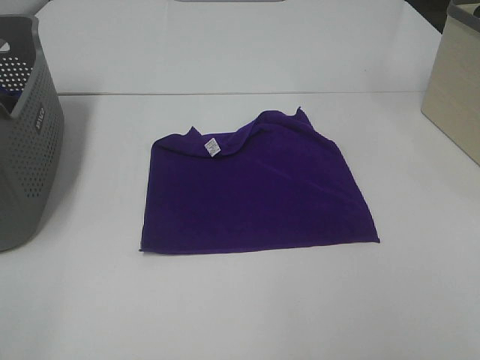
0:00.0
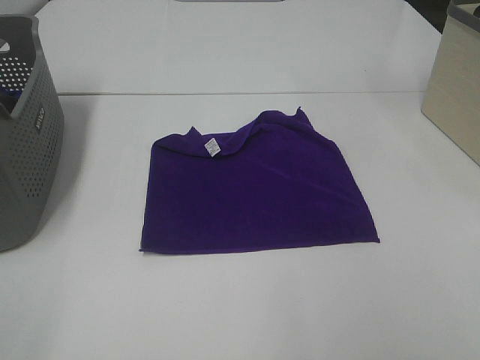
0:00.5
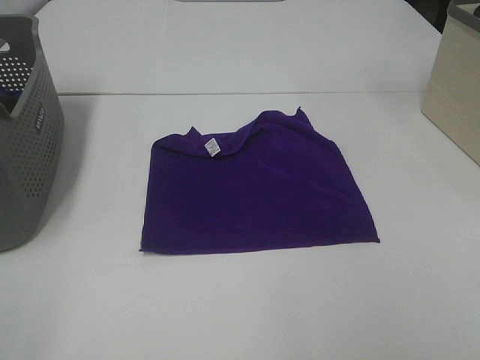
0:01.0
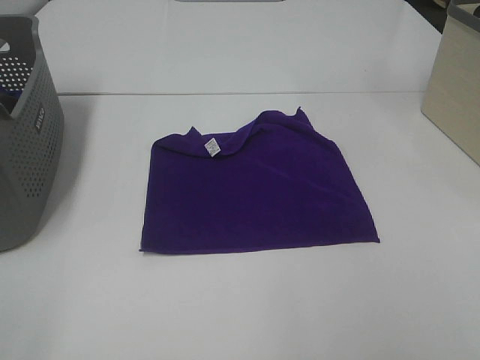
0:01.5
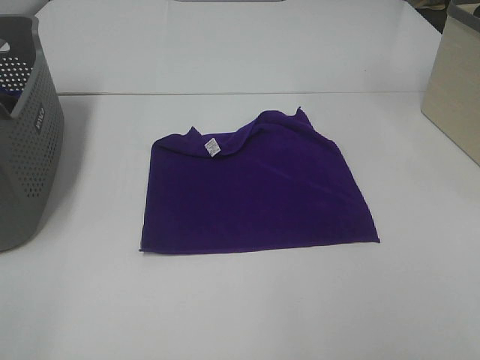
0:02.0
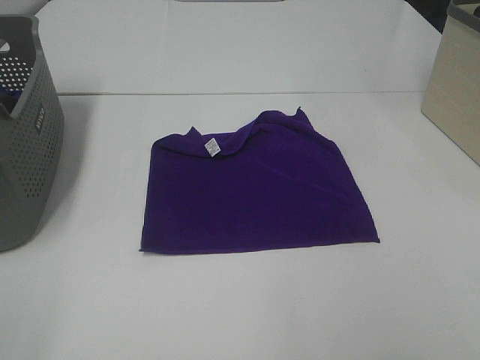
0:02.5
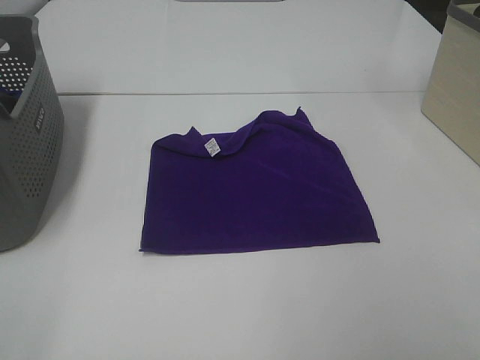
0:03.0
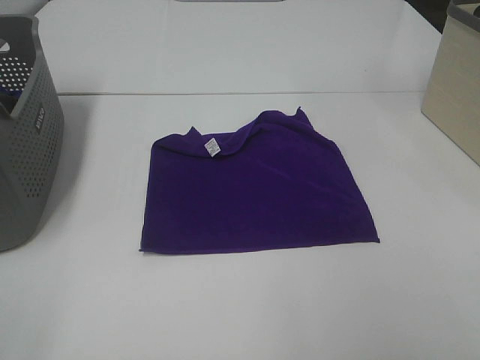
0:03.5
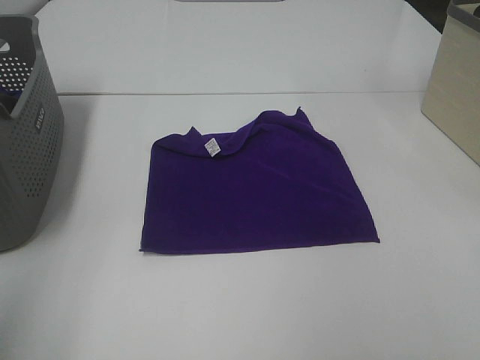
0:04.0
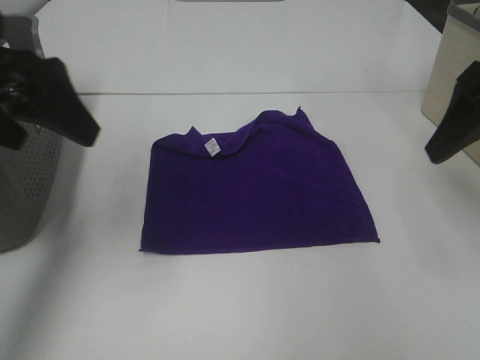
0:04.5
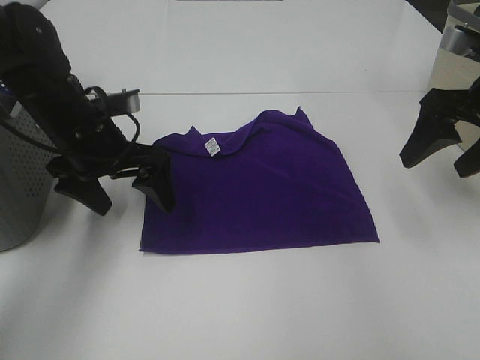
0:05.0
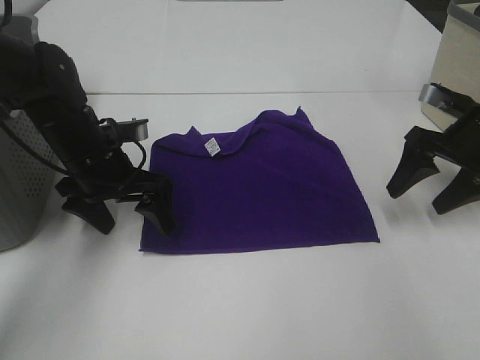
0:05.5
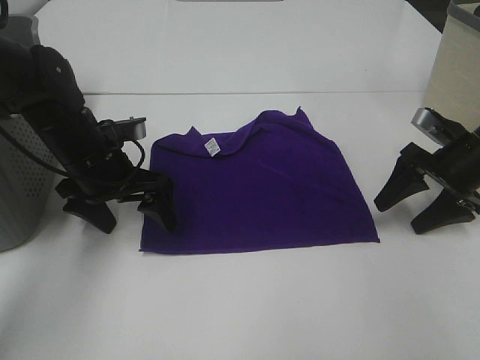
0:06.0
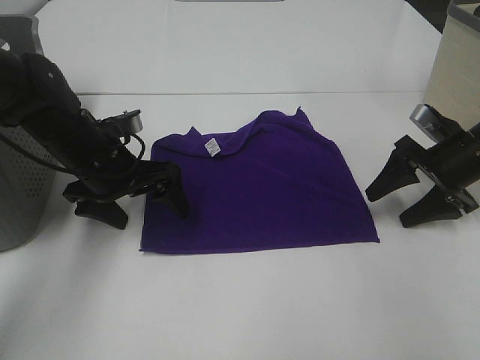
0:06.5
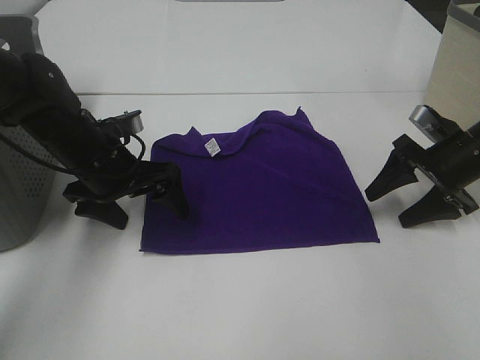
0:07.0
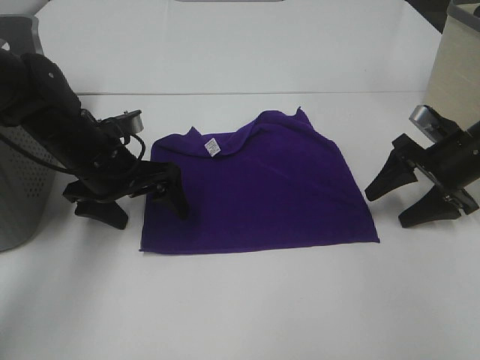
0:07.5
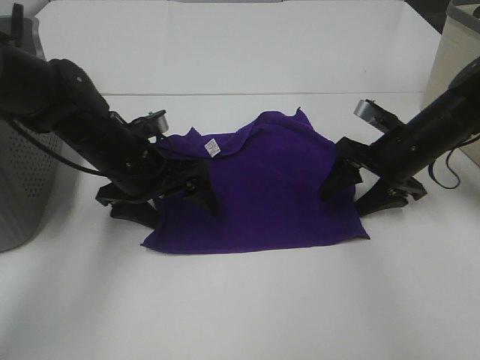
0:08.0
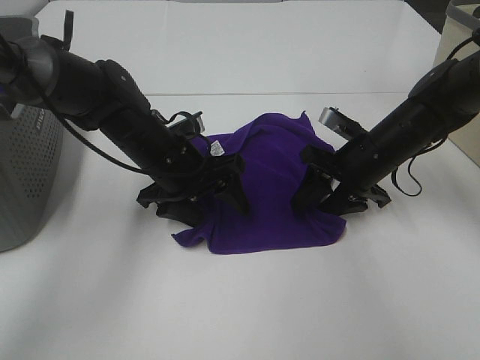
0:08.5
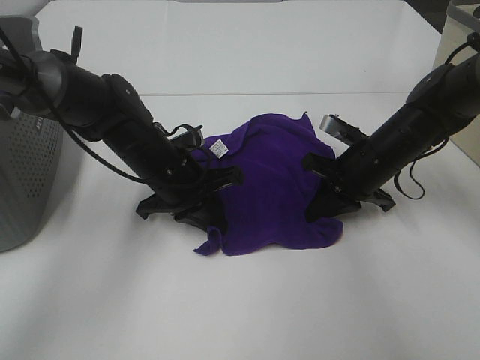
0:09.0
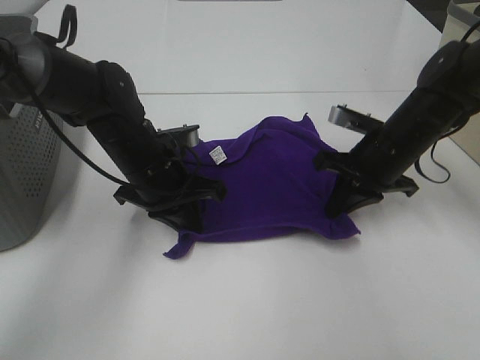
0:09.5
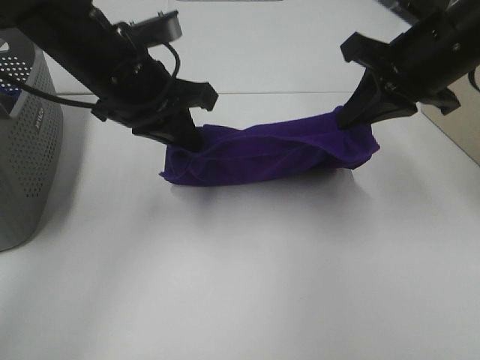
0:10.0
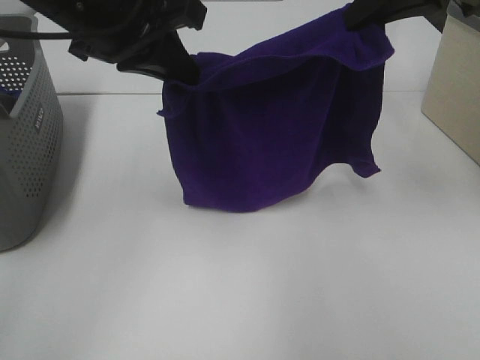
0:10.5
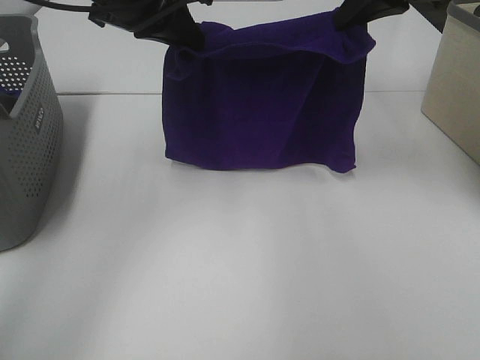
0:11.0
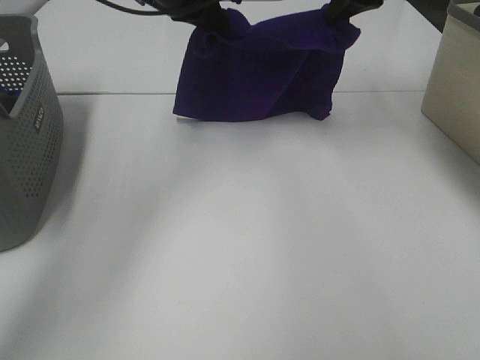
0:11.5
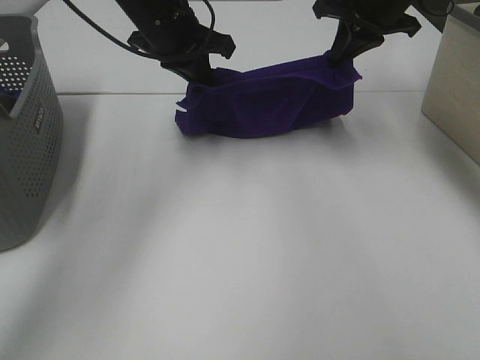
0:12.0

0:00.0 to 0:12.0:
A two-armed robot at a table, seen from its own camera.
Task of the whole recording: Fold towels.
Step, 0:00.0 to 0:09.0: Left hand: grab the bottom left corner of purple towel.
Step, 0:00.0 to 0:09.0: Right hand: grab the bottom right corner of purple towel.
0:00.0 to 0:02.0: Both grippers stay put.
0:02.0 to 0:04.0: The left gripper heads forward and upward, covering approximately 10 cm.
0:04.0 to 0:06.0: The right gripper is displaced forward and downward by roughly 35 cm. The left gripper shifts approximately 40 cm forward, downward and to the right.
0:06.0 to 0:08.0: The right gripper travels to the left by some 10 cm.
0:08.0 to 0:10.0: Both grippers travel together upward, roughly 15 cm. The right gripper closes, while the left gripper closes.
0:10.0 to 0:12.0: Both grippers move forward, some 15 cm.

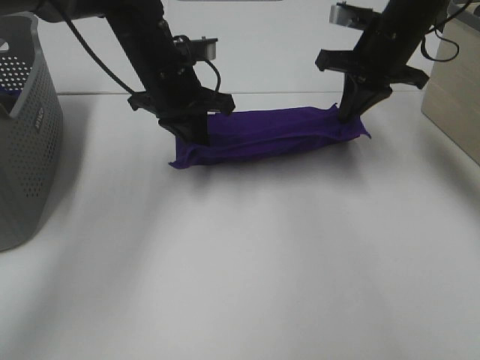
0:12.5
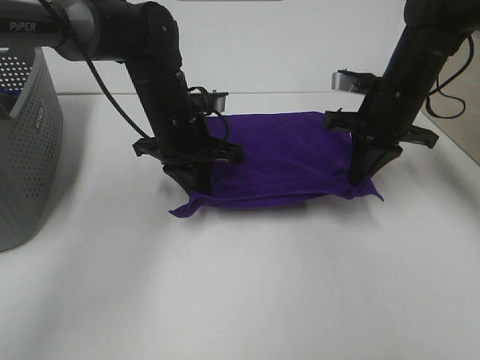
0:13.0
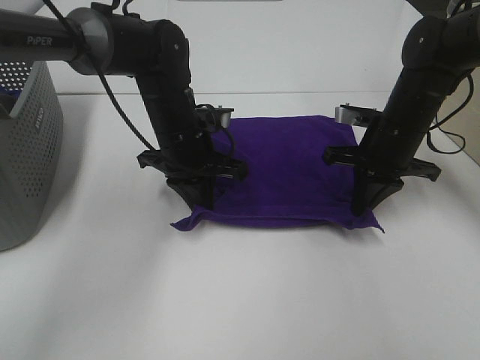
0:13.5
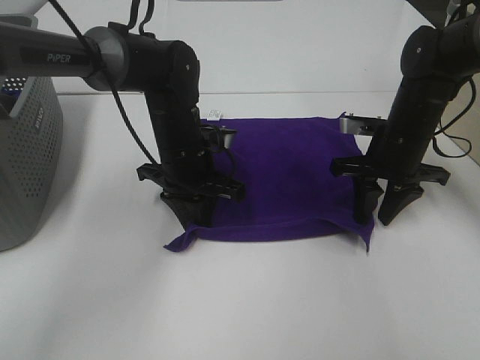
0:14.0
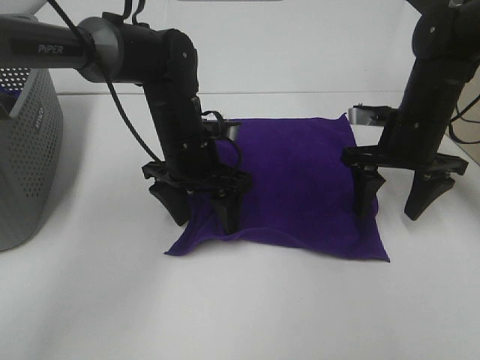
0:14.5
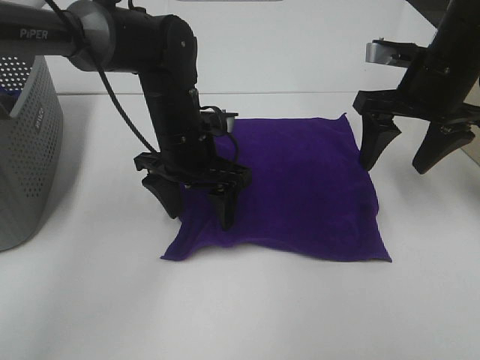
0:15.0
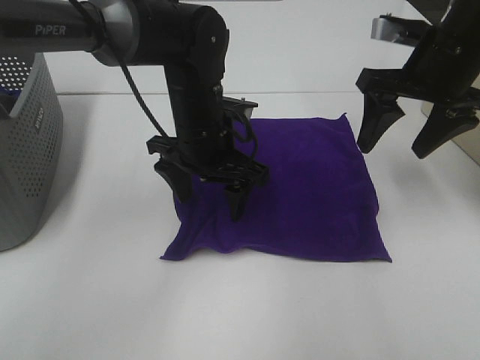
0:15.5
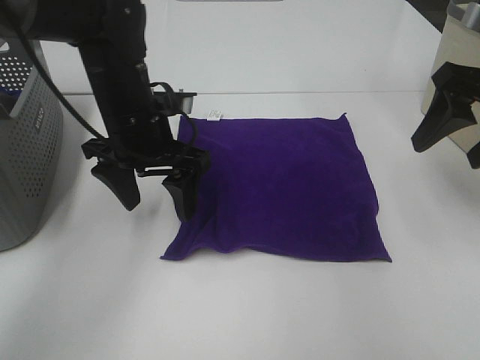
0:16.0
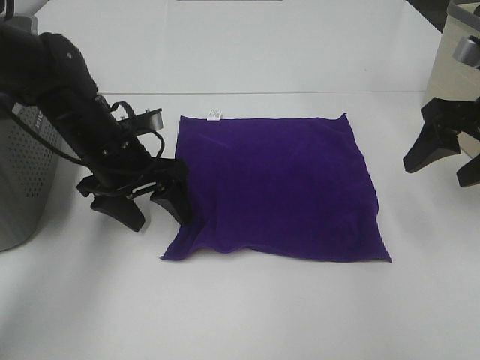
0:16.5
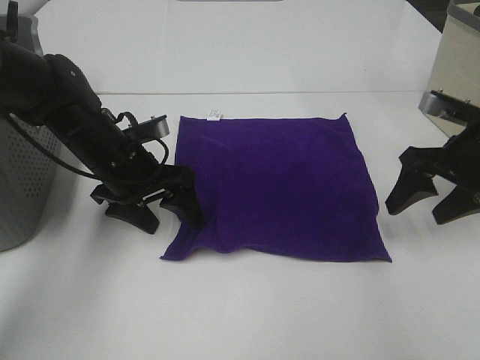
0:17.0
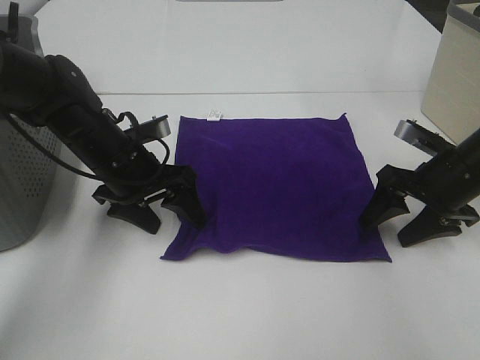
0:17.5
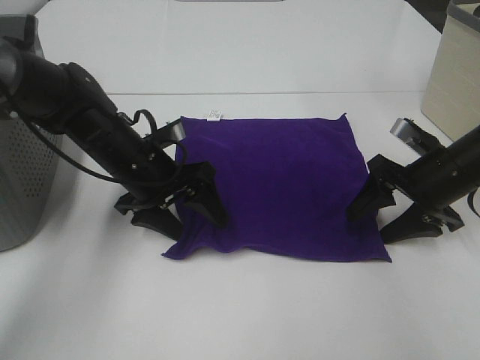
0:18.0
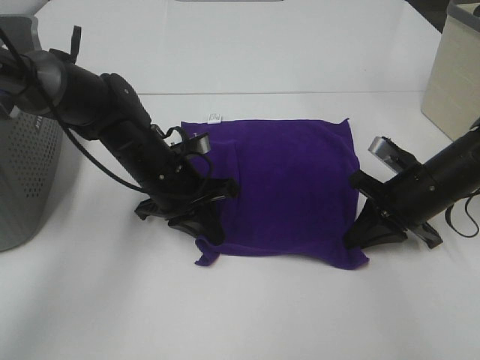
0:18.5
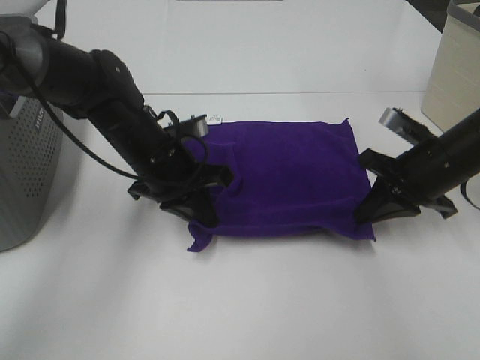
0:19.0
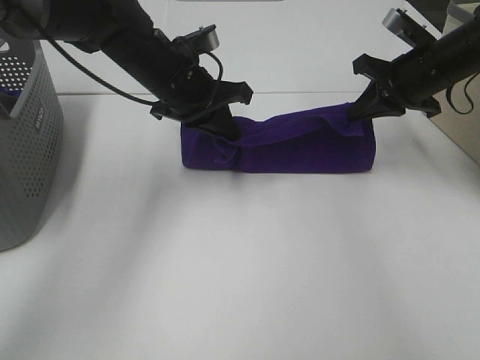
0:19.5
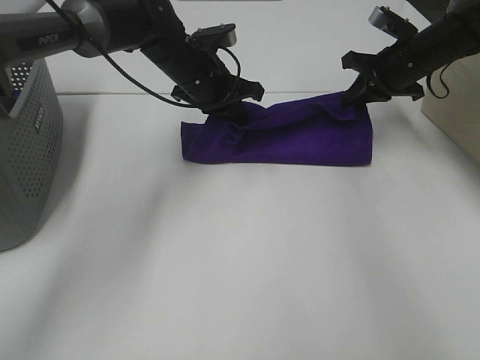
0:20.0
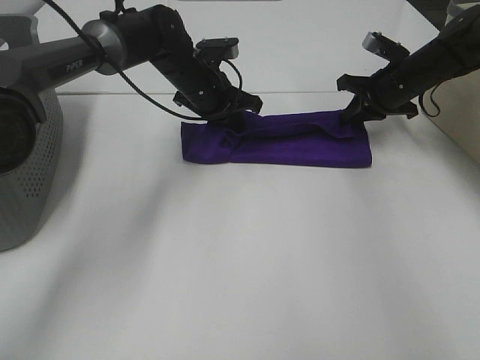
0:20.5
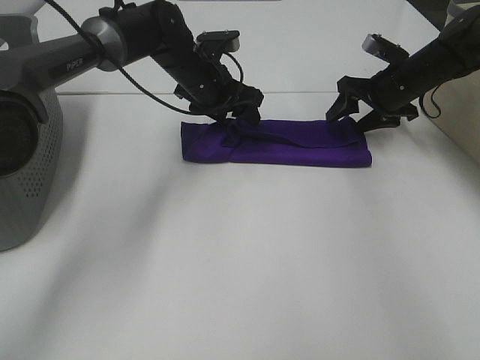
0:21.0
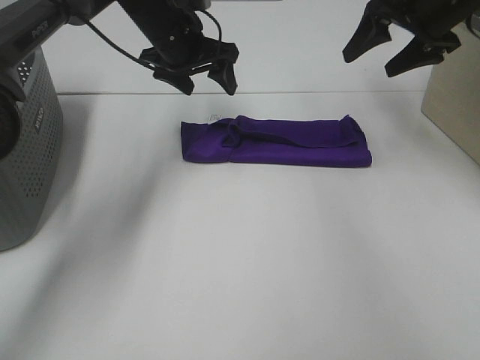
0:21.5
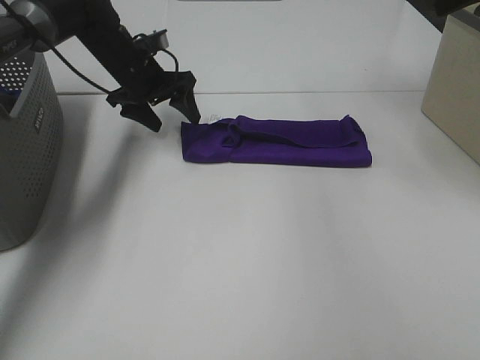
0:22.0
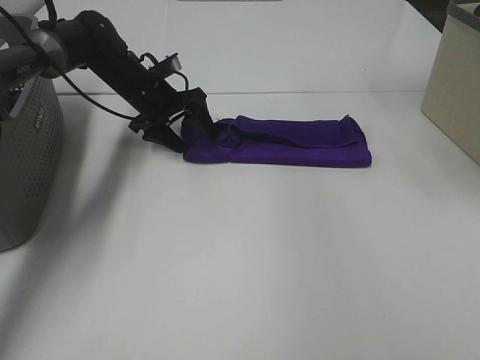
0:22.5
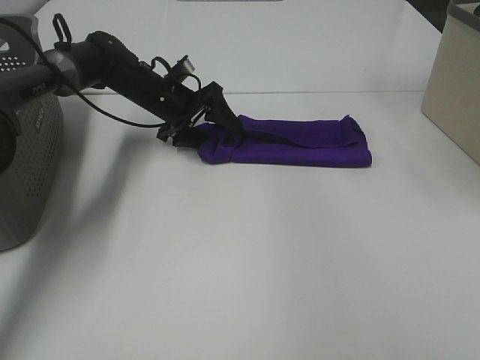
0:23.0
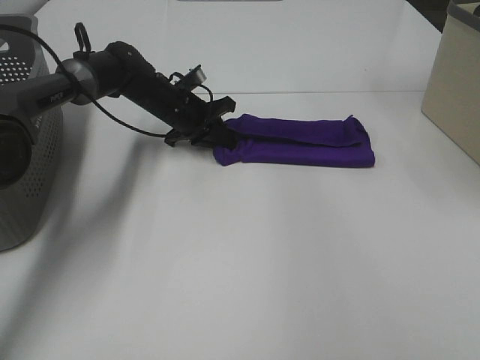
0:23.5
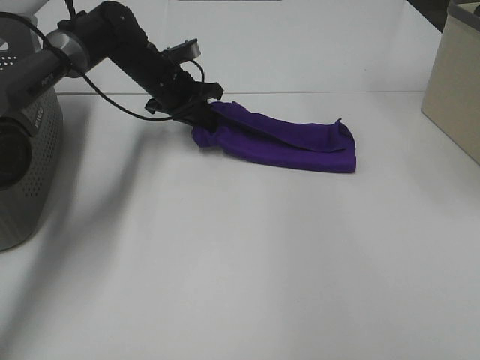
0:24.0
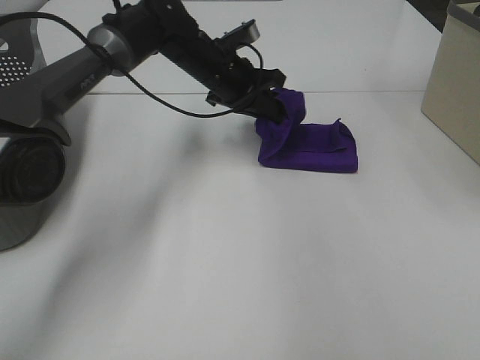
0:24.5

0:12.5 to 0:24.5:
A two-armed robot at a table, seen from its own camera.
Task of the whole recording: Fold towels.
Step, 0:14.5 to 0:18.5: Left hand: grab the bottom left corner of purple towel.
Step, 0:14.5 to 0:18.5: Right hand: grab the bottom right corner of purple towel.
Step, 0:19.0 to 0:21.0: Left hand: fold the purple towel up.
Step, 0:19.0 to 0:21.0: Right hand: fold the purple towel up.
0:12.5 to 0:14.5: The left gripper shifts roughly 10 cm downward and backward, and opens its fingers. Meanwhile the right gripper travels backward and downward by about 10 cm, and opens up.
0:14.5 to 0:16.5: The left gripper travels to the left by roughly 10 cm. The right gripper is displaced upward, backward and to the right by approximately 15 cm.
0:16.5 to 0:18.5: The left gripper shifts about 5 cm to the right, and closes its fingers. The right gripper shifts roughly 15 cm downward, and closes its fingers.
0:18.5 to 0:20.5: The grippers both shift forward by some 15 cm.
0:20.5 to 0:22.5: The right gripper is displaced upward and backward by approximately 30 cm, and opens up. Meanwhile the left gripper goes approximately 10 cm to the left, and opens.
0:22.5 to 0:24.5: The right gripper moves about 5 cm, while the left gripper is displaced to the right and upward by some 15 cm, and closes.

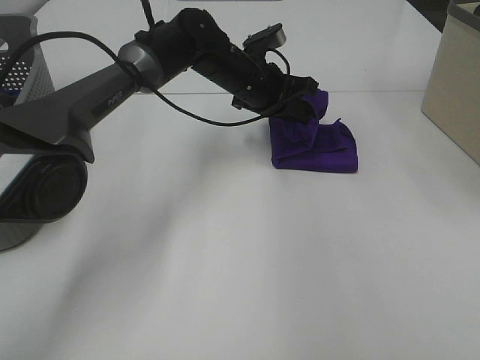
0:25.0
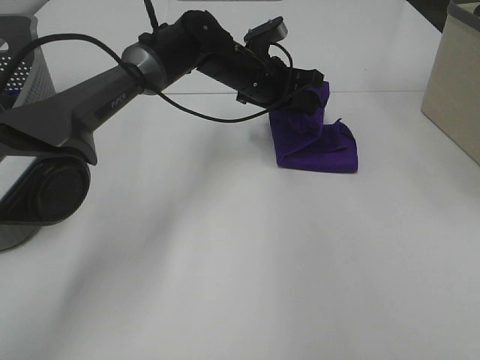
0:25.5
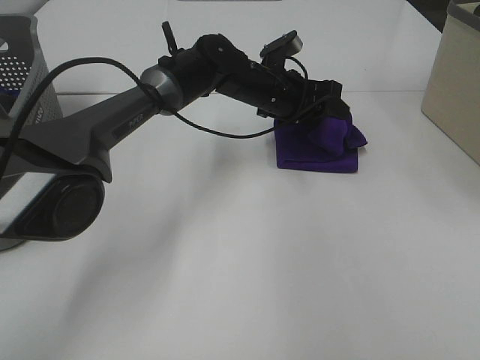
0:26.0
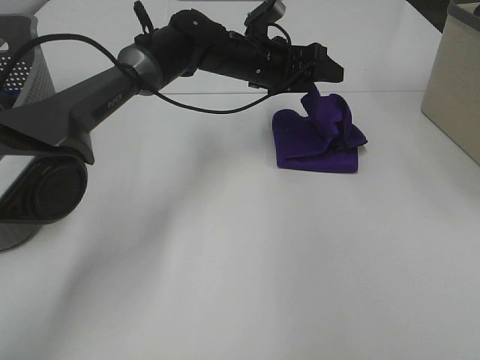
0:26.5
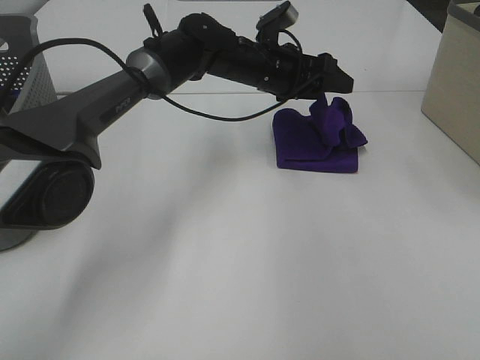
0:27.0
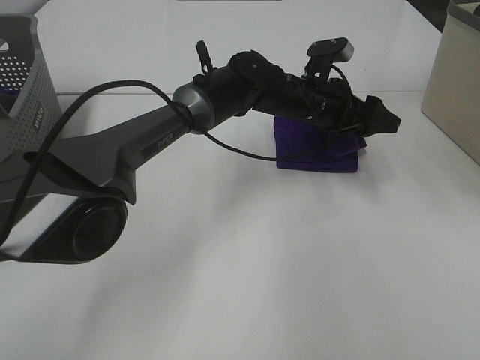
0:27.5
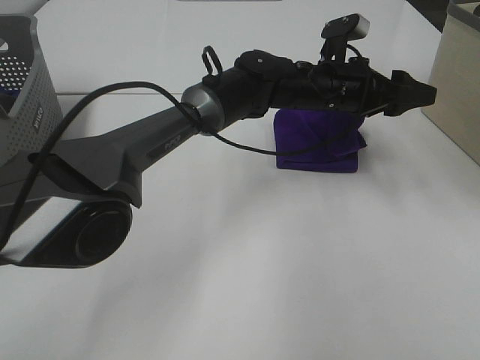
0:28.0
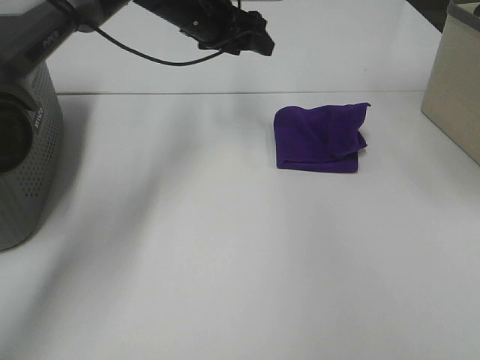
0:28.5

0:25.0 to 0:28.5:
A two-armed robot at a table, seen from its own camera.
Task of the whole recording: Fold towels.
Step, 0:25.0 to 0:27.0: Left hand: fold the purple towel from left to right.
0:25.0 to 0:27.0: The left gripper opens its fingers.
0:27.0 to 0:28.5: The left gripper is displaced to the left and upward by about 10 cm; the right gripper moves about 5 cm.
